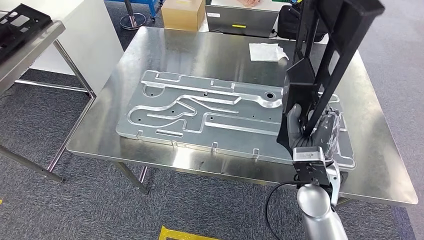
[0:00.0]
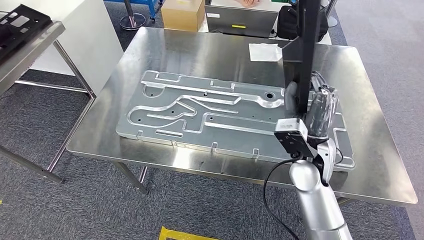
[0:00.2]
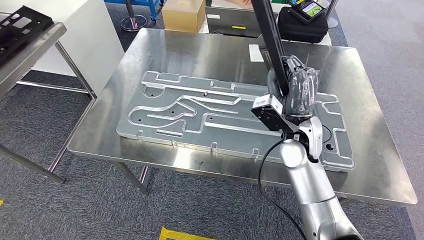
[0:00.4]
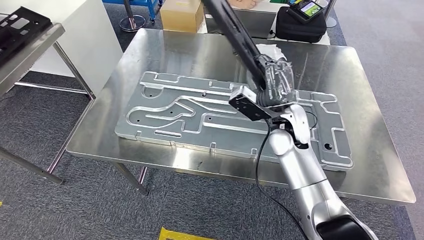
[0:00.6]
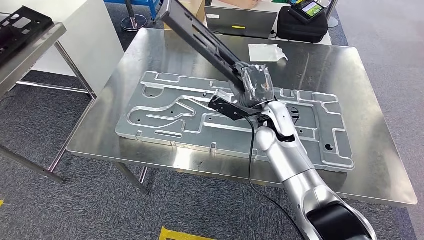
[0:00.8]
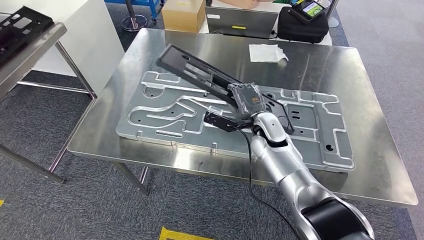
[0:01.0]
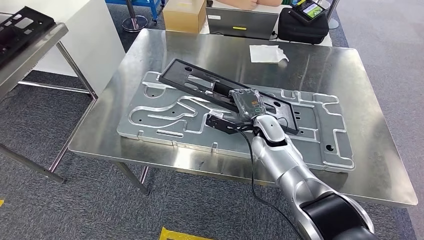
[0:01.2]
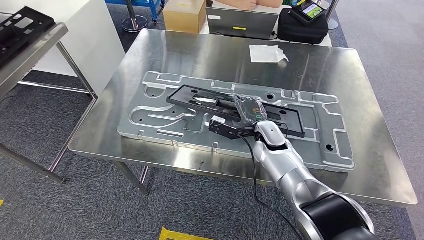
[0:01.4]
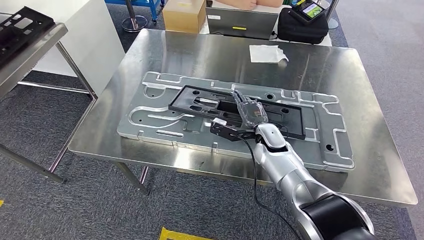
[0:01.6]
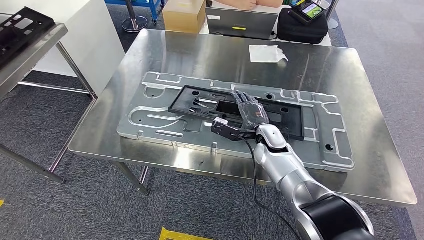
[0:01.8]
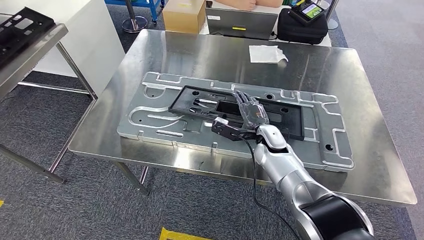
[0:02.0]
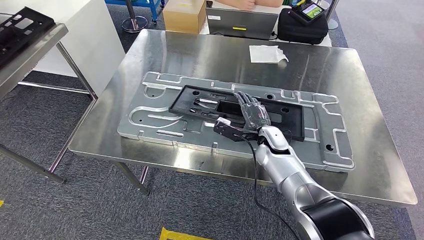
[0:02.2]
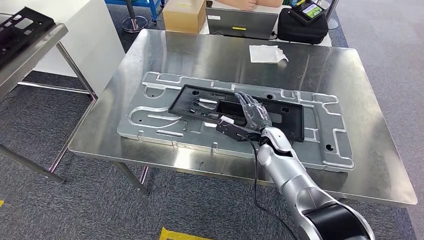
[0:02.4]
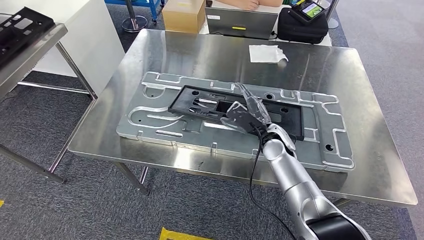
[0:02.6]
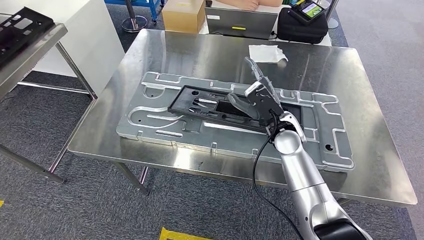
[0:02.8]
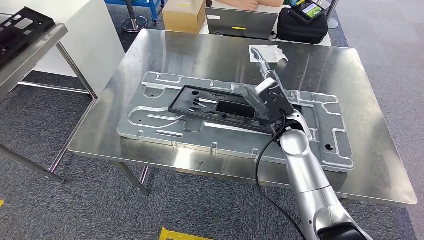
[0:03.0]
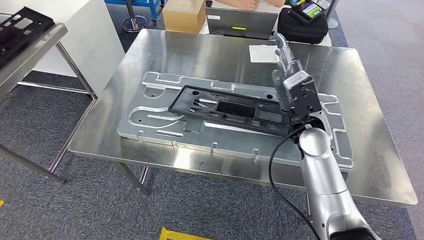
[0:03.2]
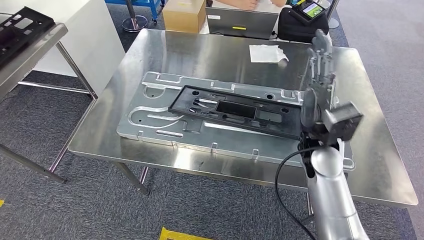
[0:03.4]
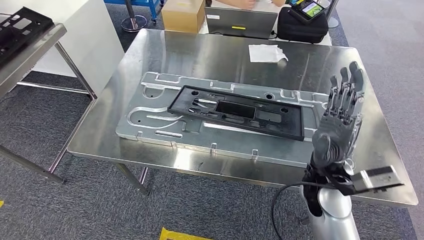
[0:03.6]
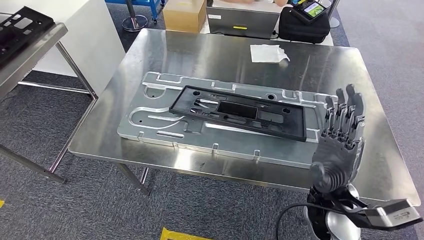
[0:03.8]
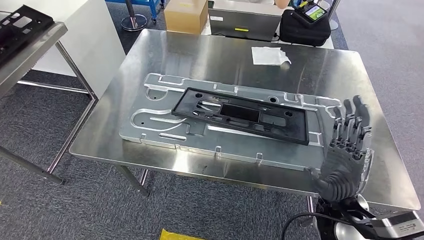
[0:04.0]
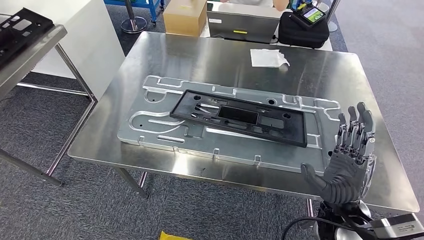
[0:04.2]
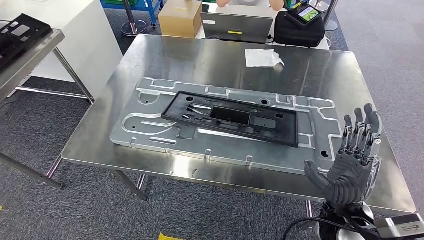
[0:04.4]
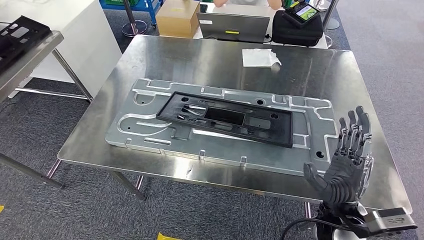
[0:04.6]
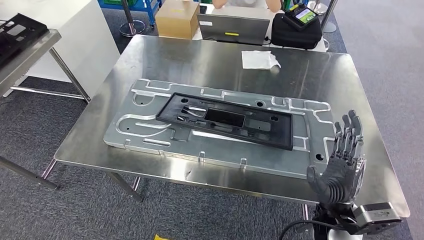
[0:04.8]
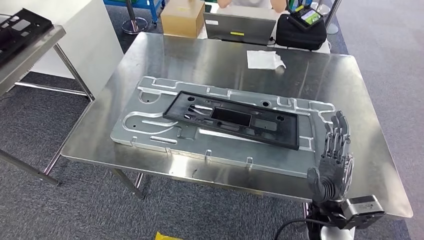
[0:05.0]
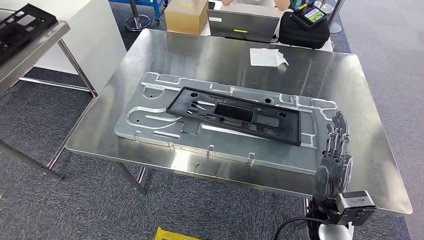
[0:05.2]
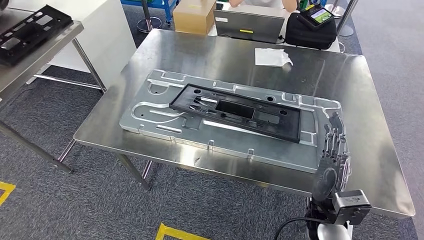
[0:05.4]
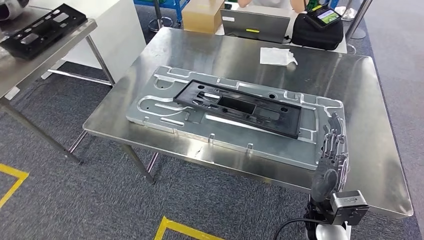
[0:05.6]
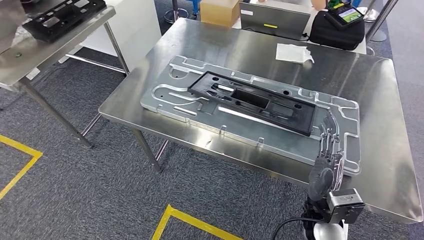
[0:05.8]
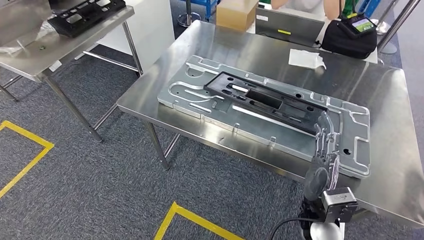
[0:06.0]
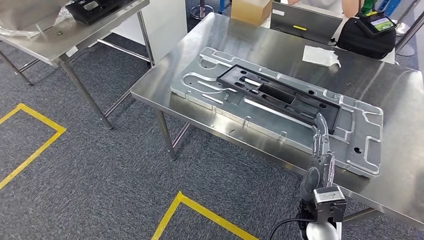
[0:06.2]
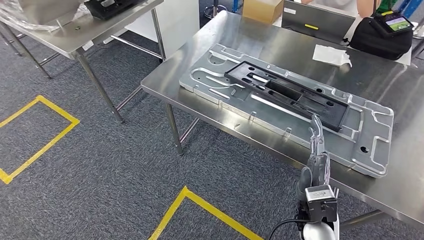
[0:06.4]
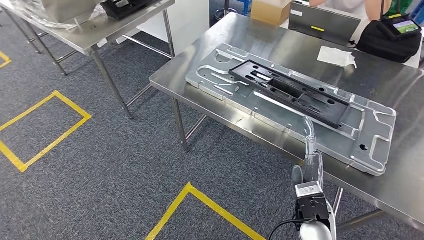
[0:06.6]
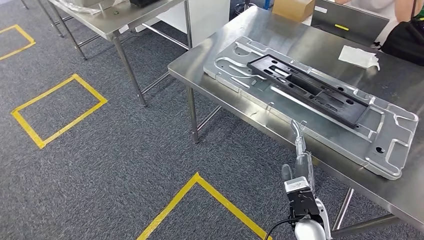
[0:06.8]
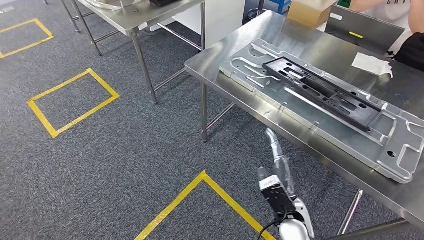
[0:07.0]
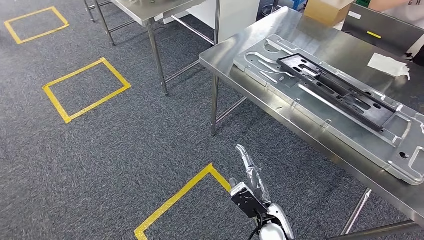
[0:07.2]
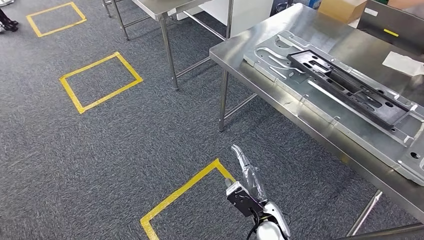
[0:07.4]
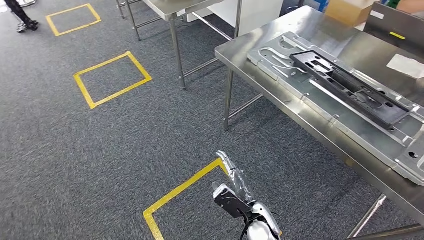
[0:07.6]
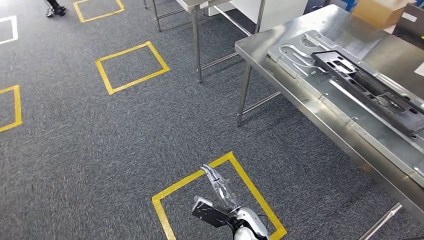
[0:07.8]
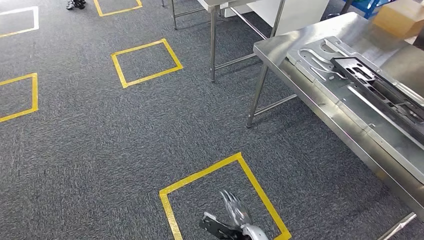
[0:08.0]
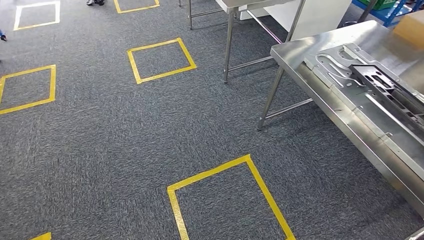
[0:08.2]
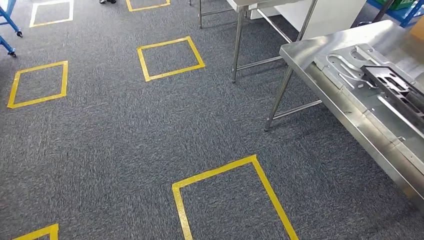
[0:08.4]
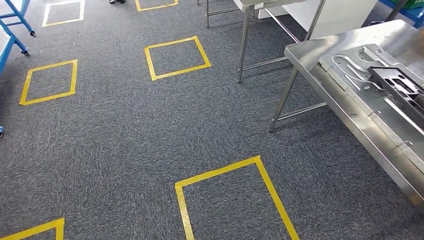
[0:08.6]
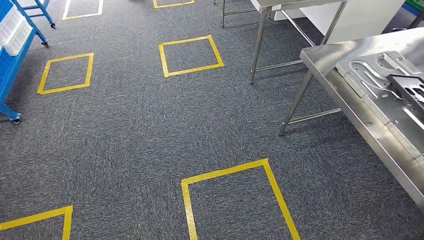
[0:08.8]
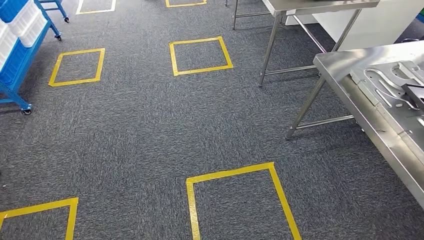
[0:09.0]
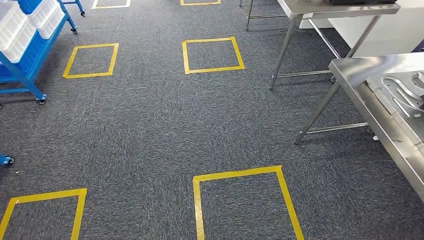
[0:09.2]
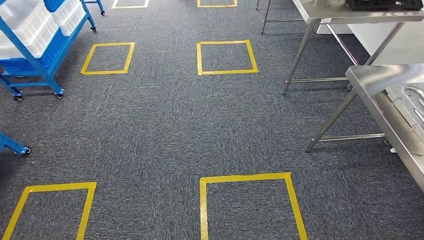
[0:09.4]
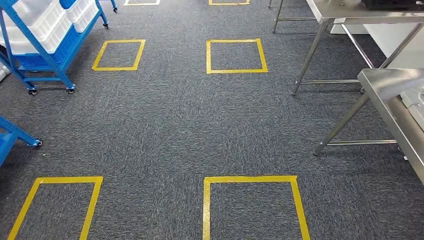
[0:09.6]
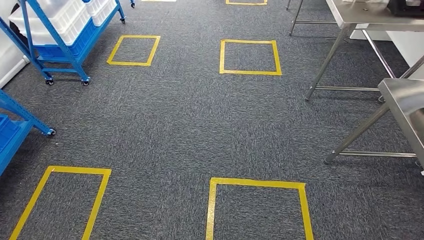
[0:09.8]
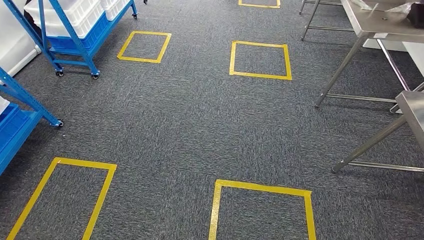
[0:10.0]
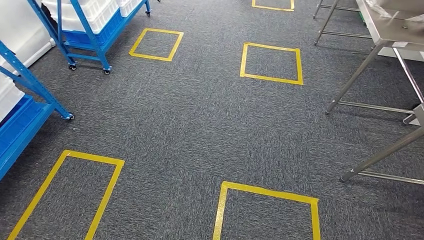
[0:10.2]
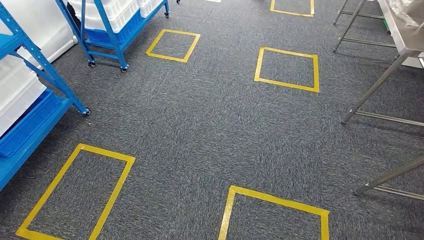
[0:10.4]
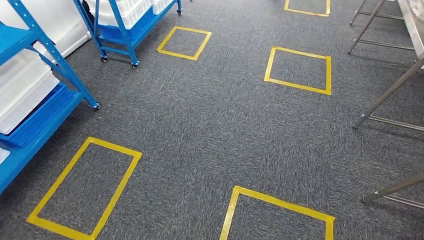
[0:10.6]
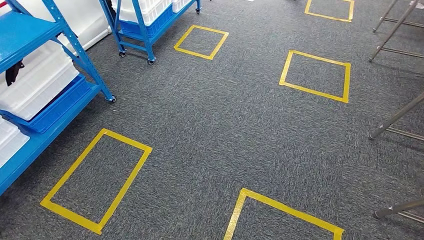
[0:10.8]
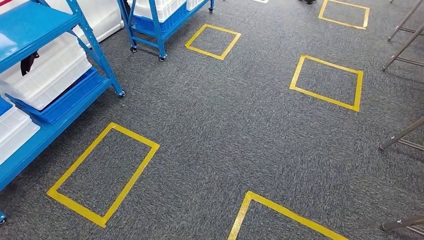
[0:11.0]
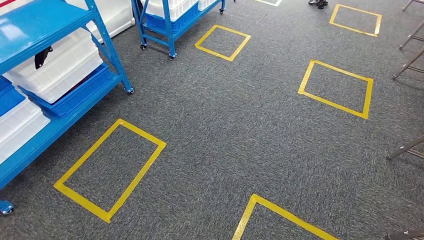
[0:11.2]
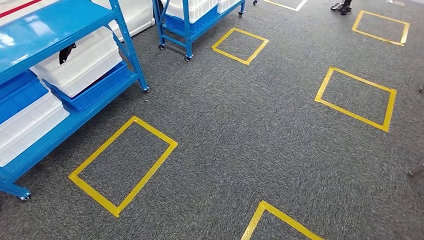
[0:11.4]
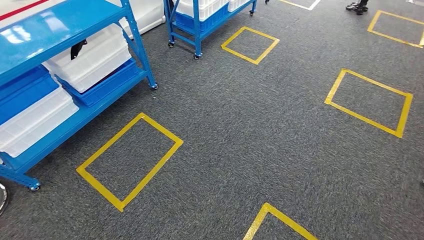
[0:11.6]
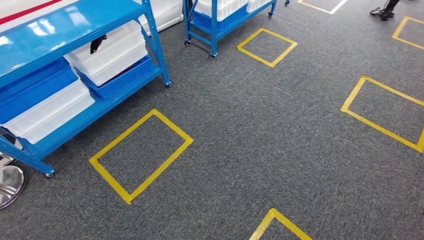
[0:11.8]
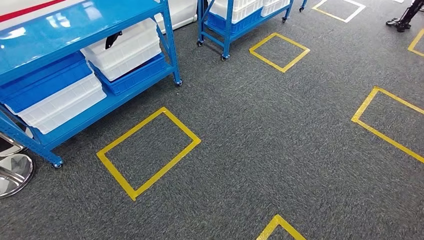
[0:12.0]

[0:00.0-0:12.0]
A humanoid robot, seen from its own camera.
Step, 0:01.0 to 0:05.0: Insert the large material into the corresponding slot on the workbench.
0:01.6 to 0:03.0: The right hand travels upward by roughly 10 cm.

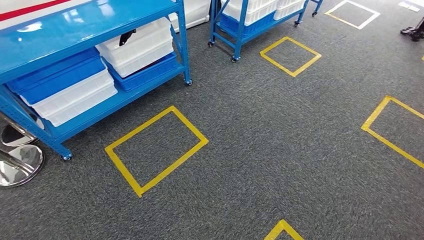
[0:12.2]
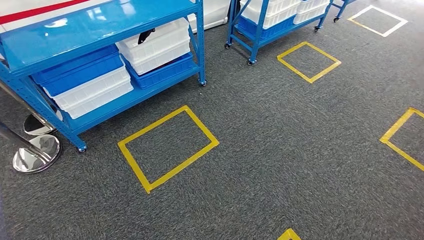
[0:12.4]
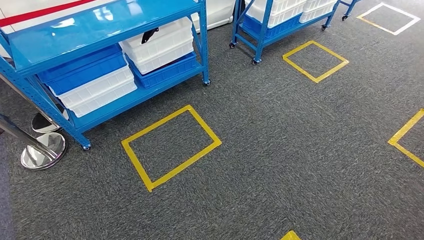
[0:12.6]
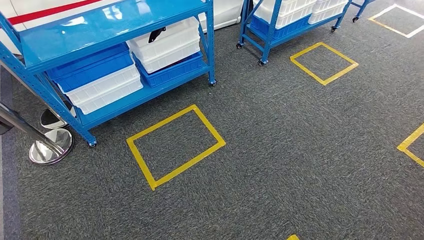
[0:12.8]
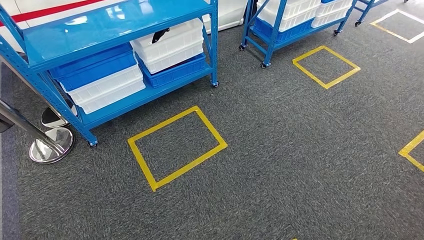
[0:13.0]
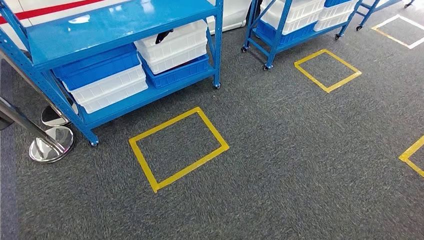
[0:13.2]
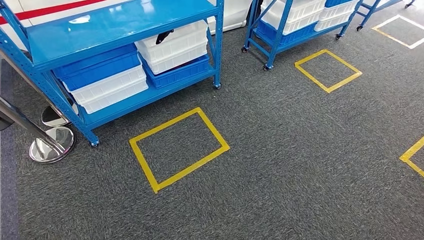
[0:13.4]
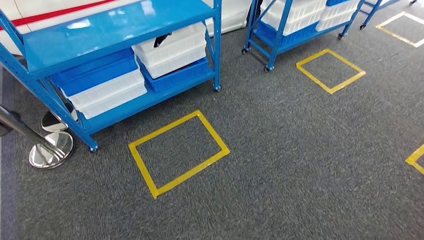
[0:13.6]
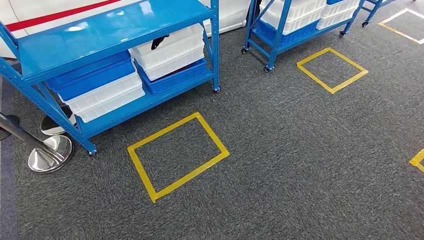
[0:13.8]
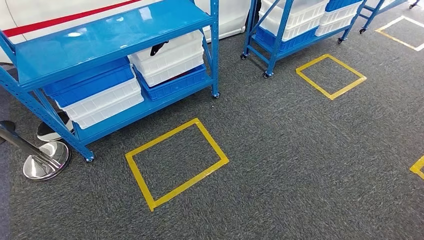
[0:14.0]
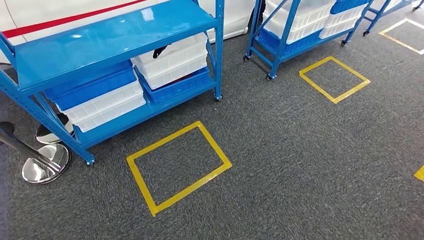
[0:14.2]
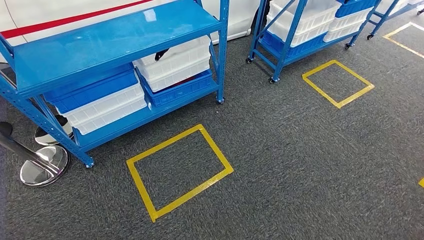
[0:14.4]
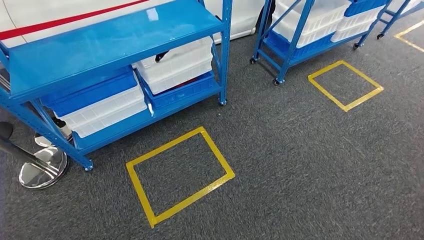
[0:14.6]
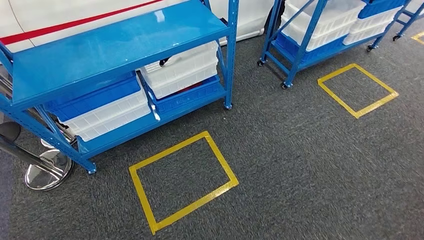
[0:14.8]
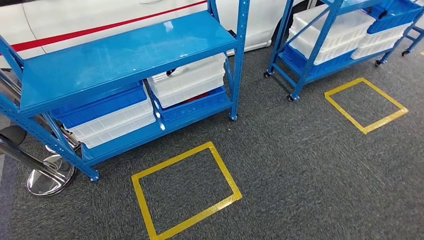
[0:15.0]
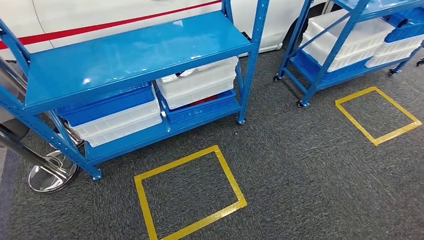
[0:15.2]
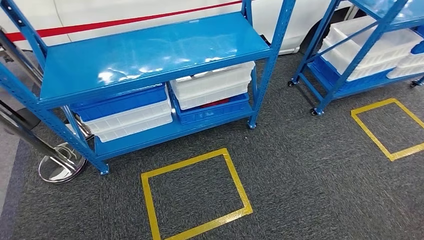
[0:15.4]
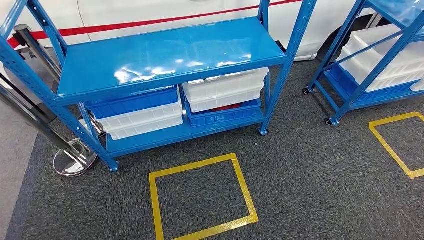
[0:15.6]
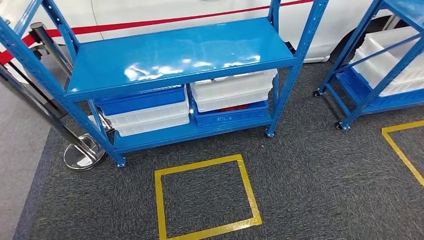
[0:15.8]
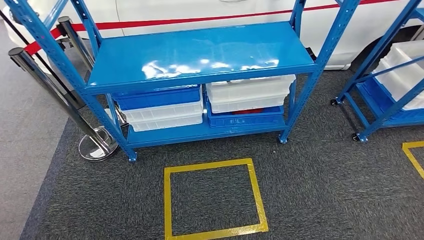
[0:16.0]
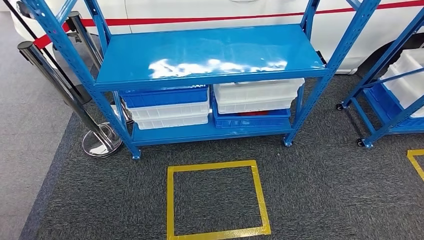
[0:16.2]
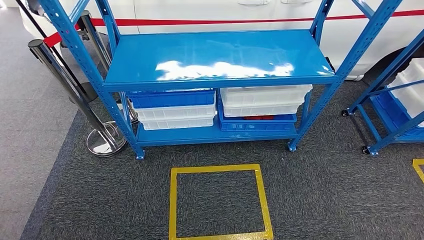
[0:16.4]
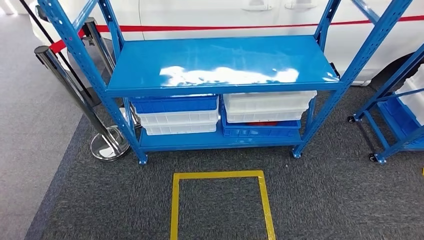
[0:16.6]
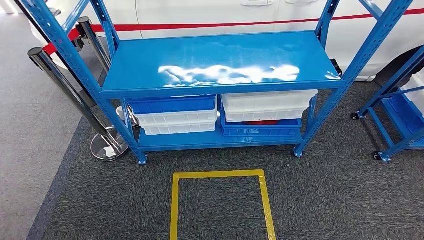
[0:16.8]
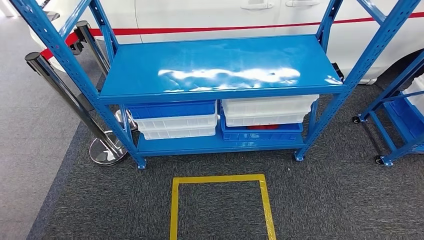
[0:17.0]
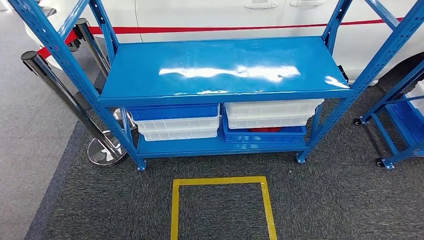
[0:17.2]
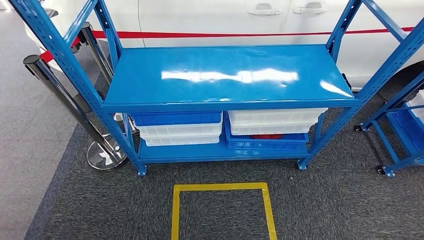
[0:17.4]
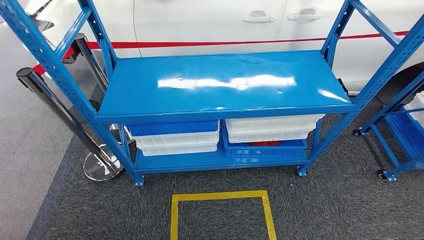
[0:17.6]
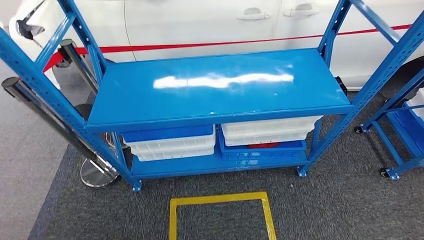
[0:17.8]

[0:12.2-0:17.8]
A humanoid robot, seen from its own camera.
Step, 0:12.2 to 0:17.8: Move to the initial position of the shelf.
